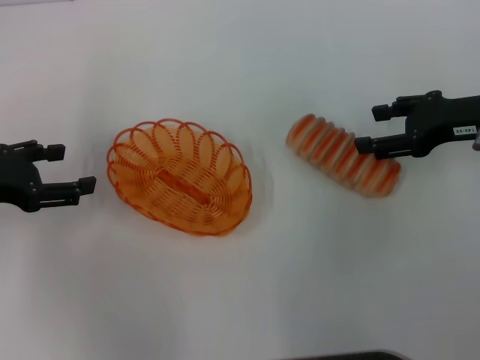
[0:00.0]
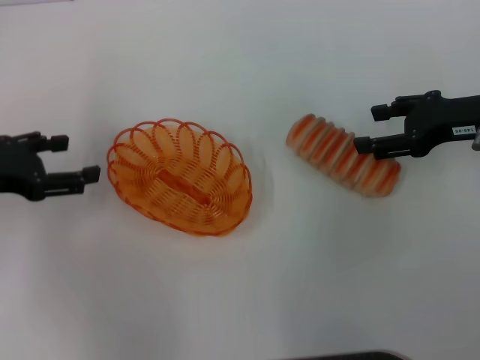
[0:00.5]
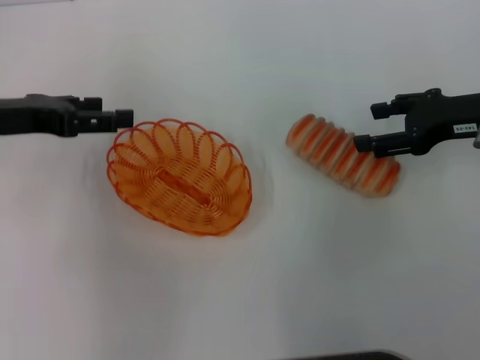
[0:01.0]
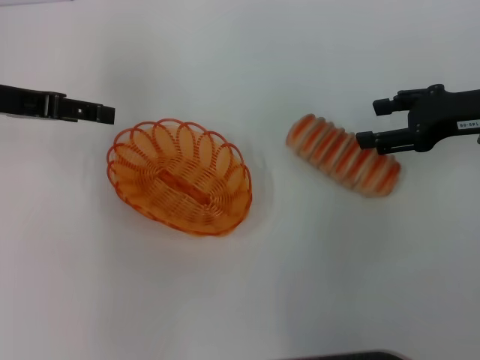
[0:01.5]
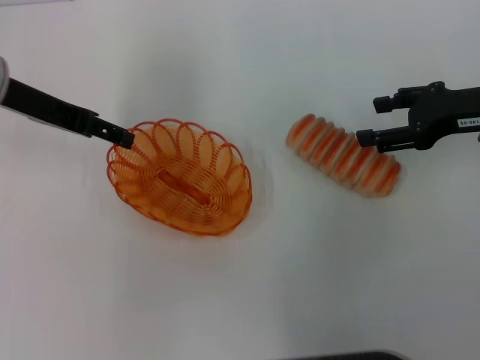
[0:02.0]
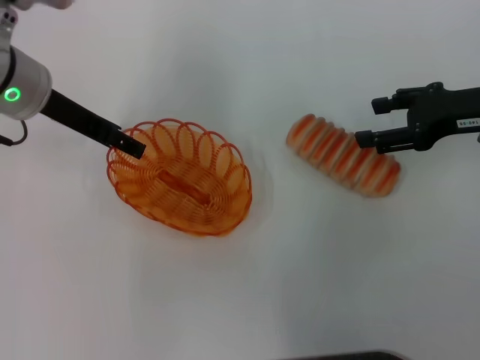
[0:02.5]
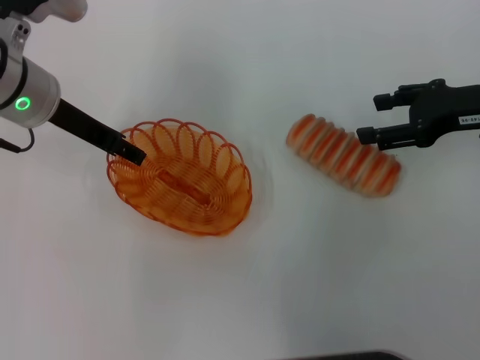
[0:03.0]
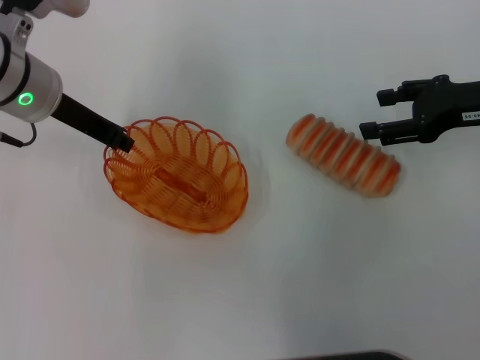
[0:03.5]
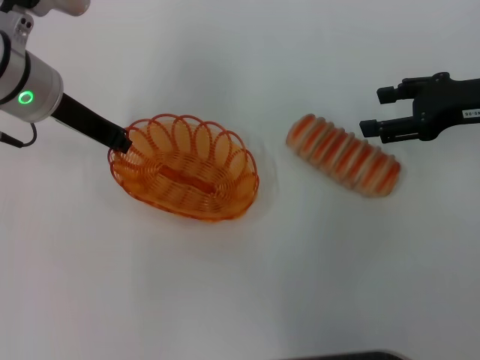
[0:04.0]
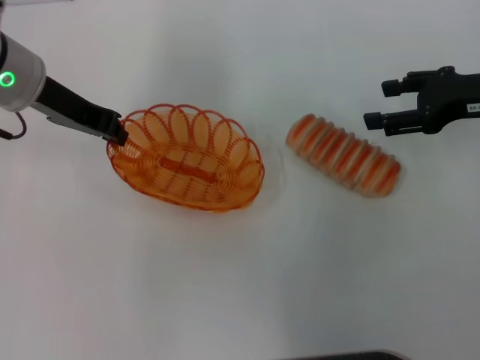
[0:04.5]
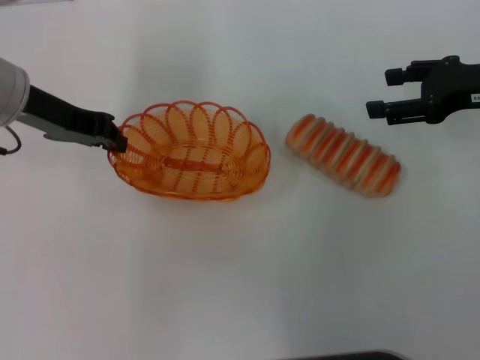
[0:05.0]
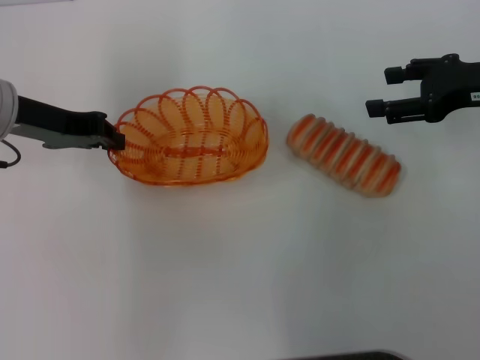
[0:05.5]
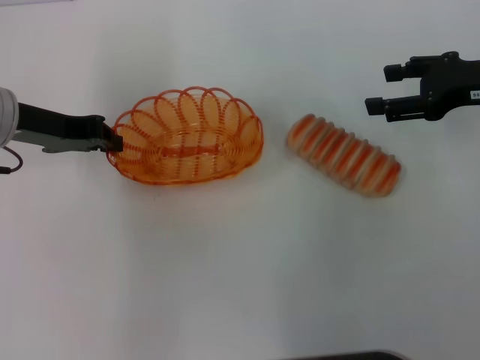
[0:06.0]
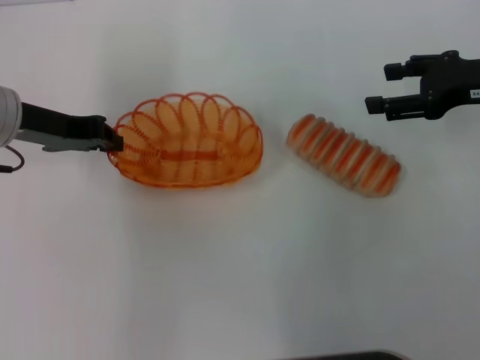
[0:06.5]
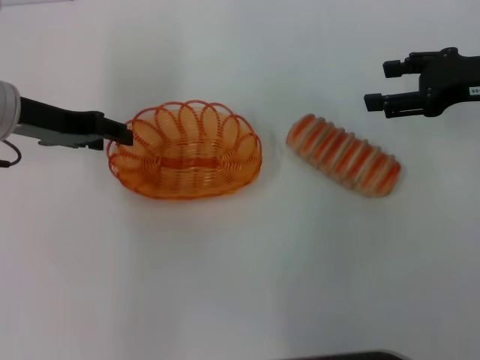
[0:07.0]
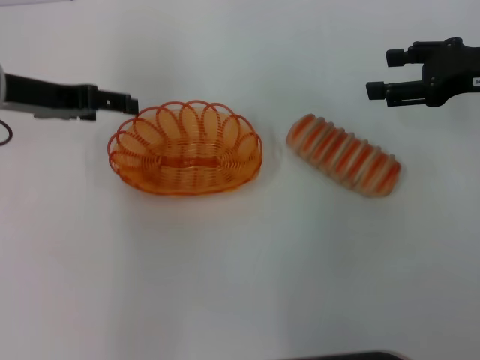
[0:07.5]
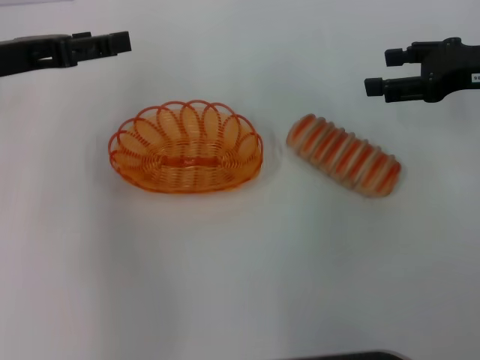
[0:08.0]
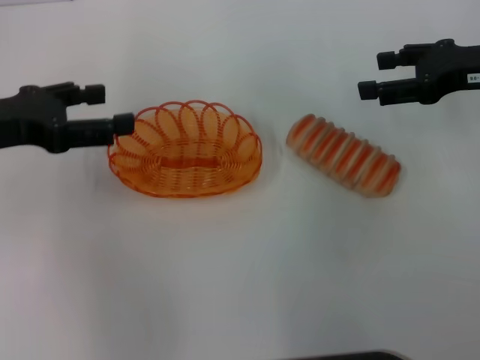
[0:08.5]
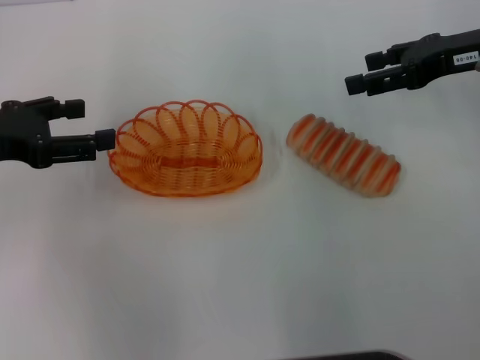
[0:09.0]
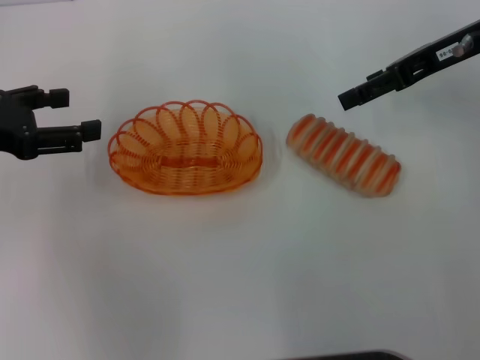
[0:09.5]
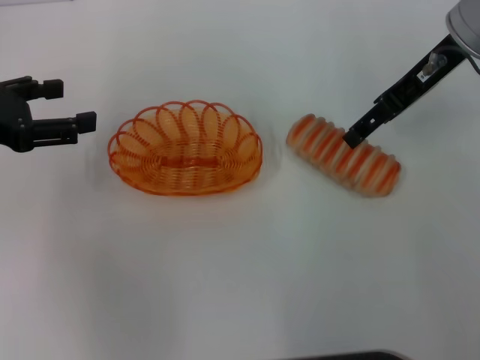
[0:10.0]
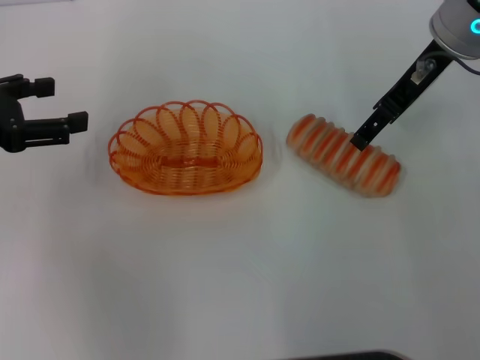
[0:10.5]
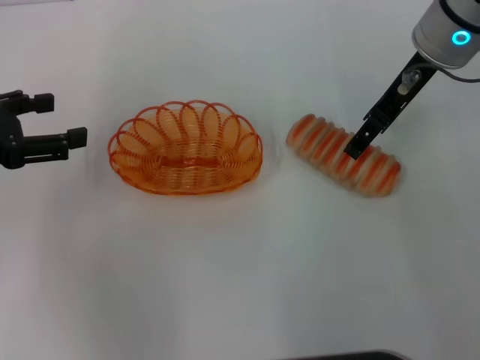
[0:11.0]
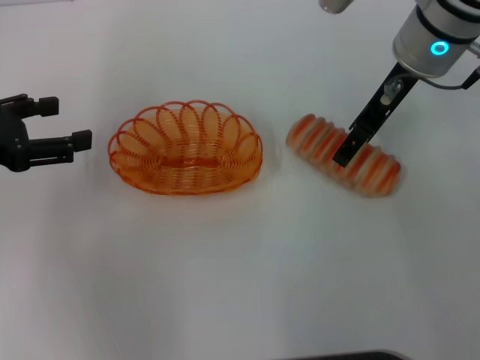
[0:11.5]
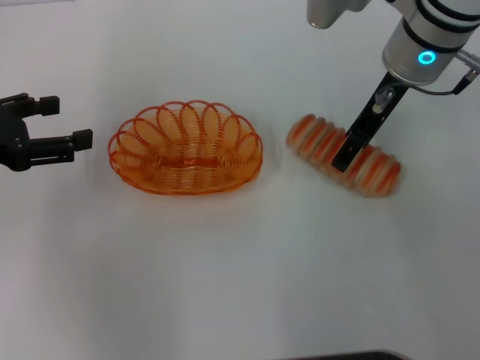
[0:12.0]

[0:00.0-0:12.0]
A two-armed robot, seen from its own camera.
Step, 0:00.0 to 0:04.0: Pick up the basket with the left gripper.
Step, 0:04.5 to 0:07.0: Place the basket in the center of view with the left gripper.
0:00.0 to 0:02.0: The left gripper moves forward, to the right and upward, some 15 cm.
0:02.0 to 0:04.0: The left gripper shifts by approximately 5 cm, and closes.
0:04.0 to 0:06.0: The left gripper moves to the left, some 5 cm.
0:06.0 to 0:08.0: The left gripper moves approximately 5 cm, and opens.
0:08.0 to 0:10.0: The right gripper goes roughly 10 cm to the left and upward. Meanwhile the left gripper ends up approximately 5 cm from where it was.
0:10.0 to 0:12.0: The right gripper moves to the left, some 5 cm.

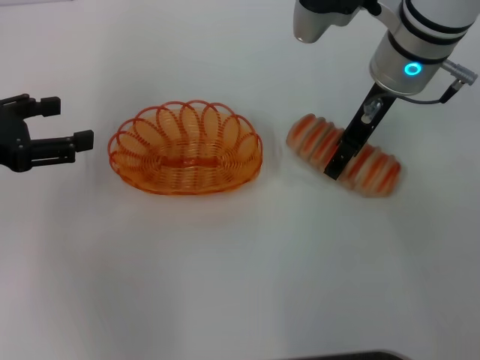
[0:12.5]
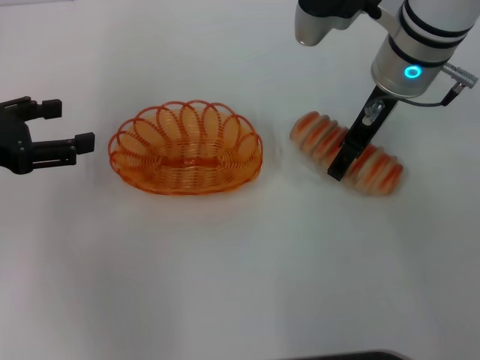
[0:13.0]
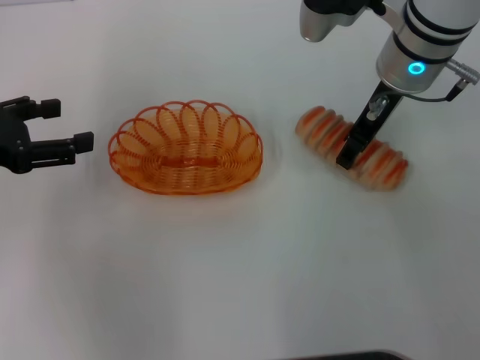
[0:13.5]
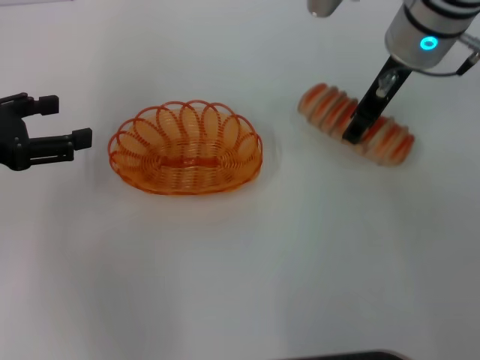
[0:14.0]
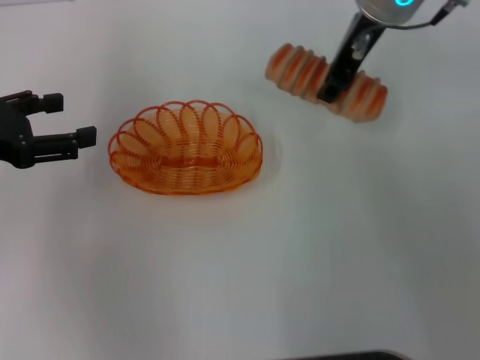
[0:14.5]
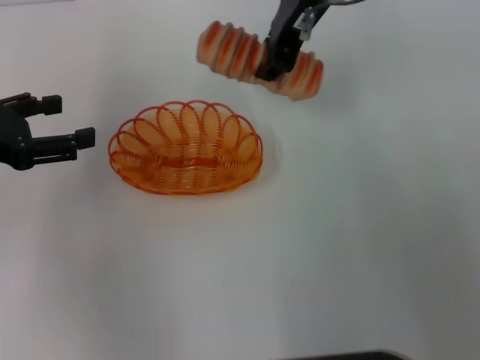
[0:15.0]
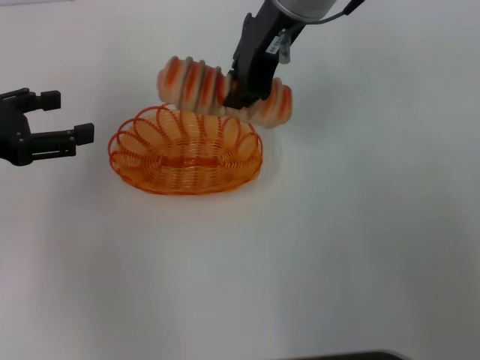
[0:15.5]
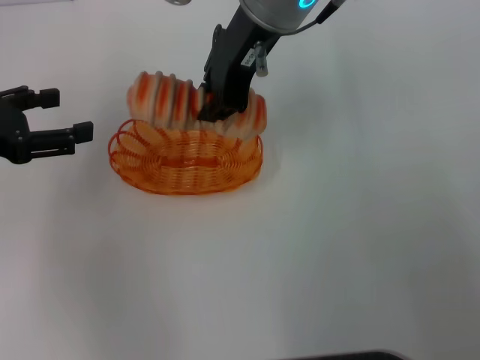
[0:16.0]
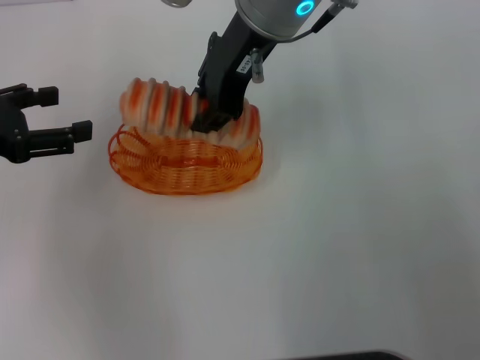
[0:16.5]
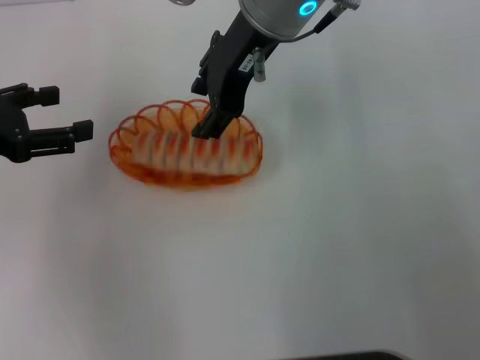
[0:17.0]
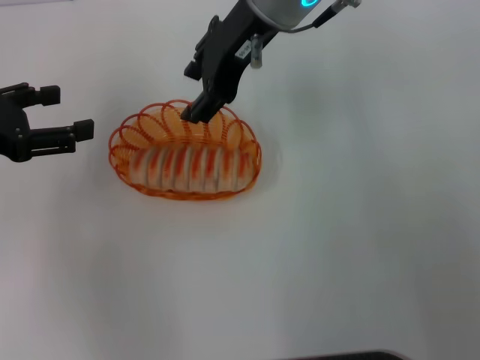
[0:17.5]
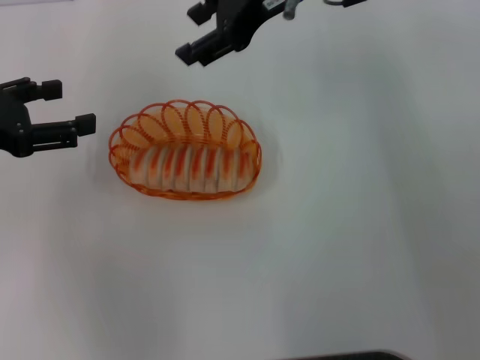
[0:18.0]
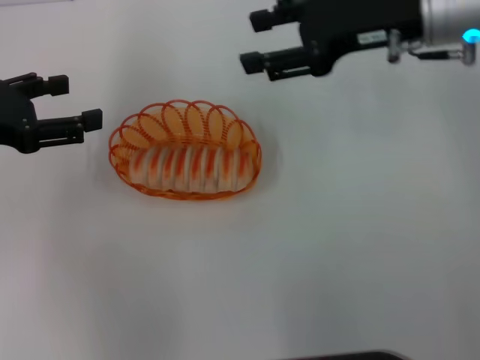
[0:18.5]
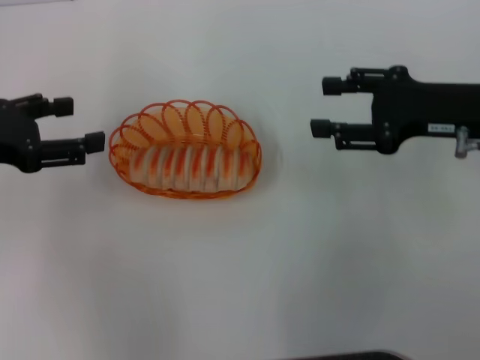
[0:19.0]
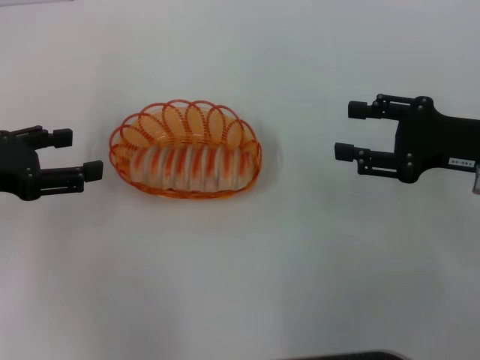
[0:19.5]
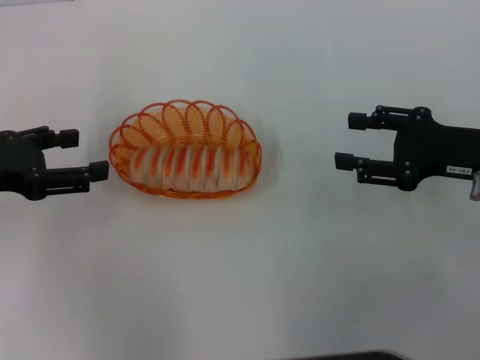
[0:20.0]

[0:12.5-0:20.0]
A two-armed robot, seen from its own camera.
Step, 0:14.0 to 0:17.0: Place the long bread into the basket with the right gripper.
0:12.5 to 0:14.5: The right gripper moves upward, approximately 5 cm, and closes its fingers.
0:14.5 to 0:16.5: The right gripper travels to the left by roughly 10 cm.
0:16.5 to 0:18.0: The right gripper is displaced to the right by roughly 5 cm, and opens up.
0:18.0 to 0:20.0: The right gripper goes roughly 25 cm to the right, downward and backward.
